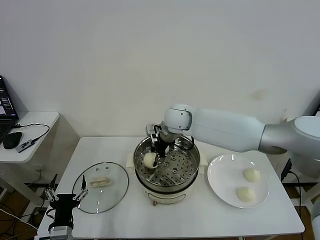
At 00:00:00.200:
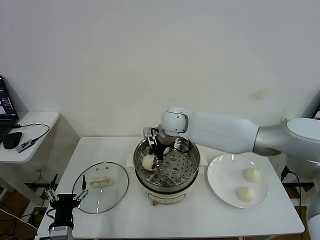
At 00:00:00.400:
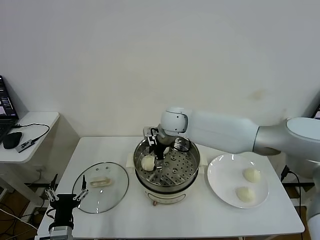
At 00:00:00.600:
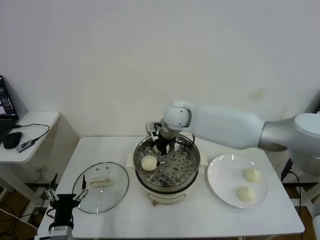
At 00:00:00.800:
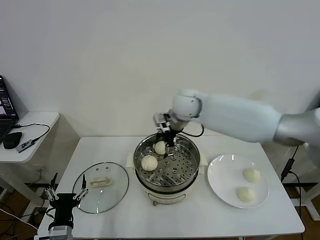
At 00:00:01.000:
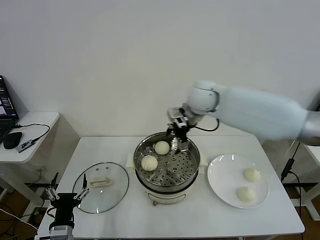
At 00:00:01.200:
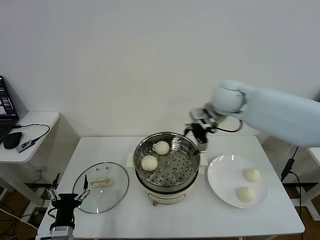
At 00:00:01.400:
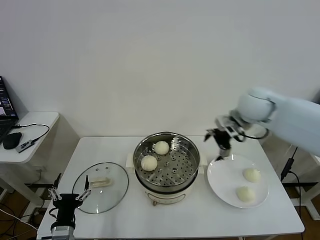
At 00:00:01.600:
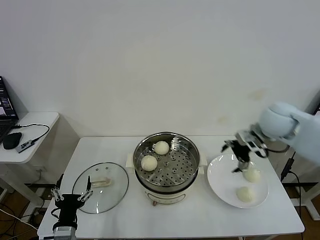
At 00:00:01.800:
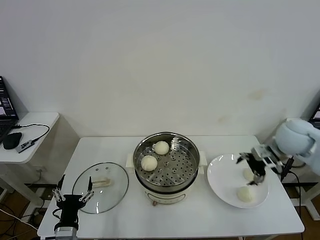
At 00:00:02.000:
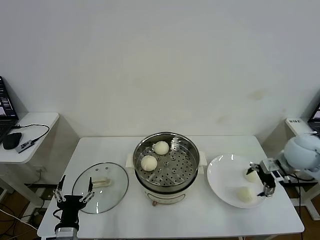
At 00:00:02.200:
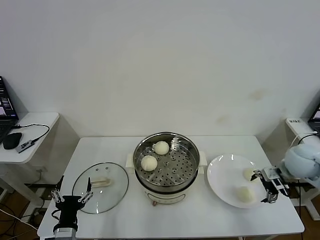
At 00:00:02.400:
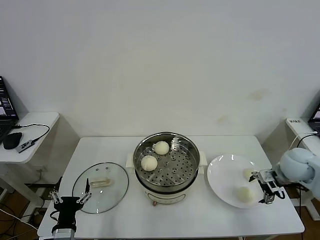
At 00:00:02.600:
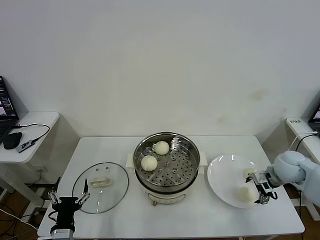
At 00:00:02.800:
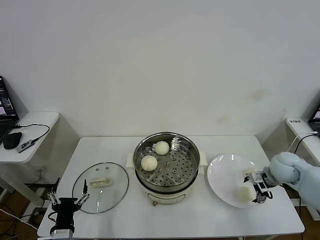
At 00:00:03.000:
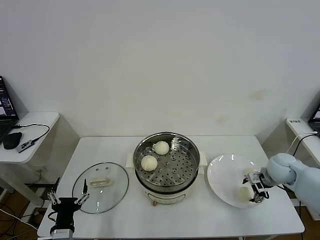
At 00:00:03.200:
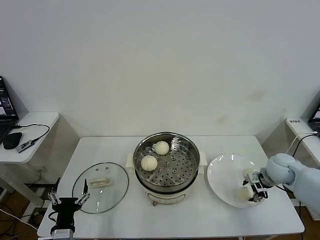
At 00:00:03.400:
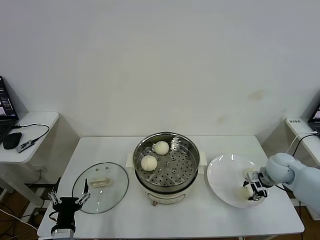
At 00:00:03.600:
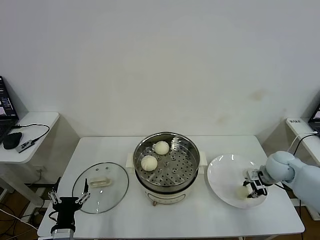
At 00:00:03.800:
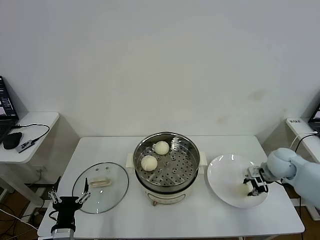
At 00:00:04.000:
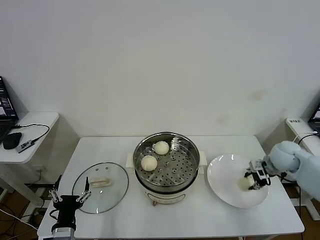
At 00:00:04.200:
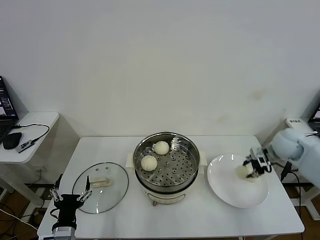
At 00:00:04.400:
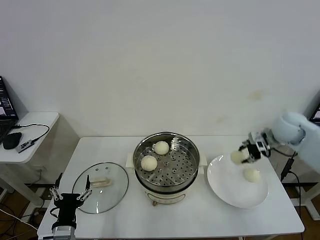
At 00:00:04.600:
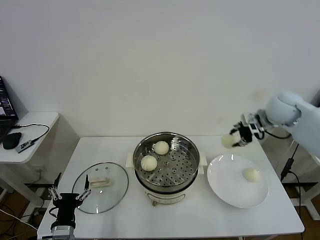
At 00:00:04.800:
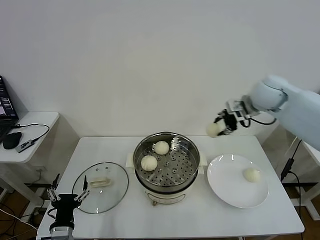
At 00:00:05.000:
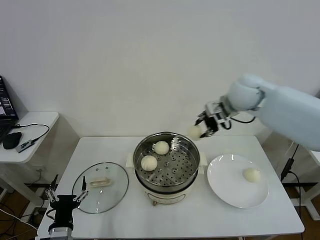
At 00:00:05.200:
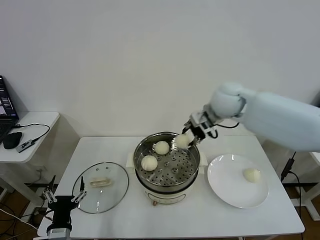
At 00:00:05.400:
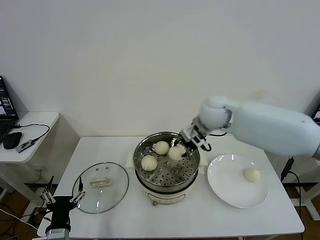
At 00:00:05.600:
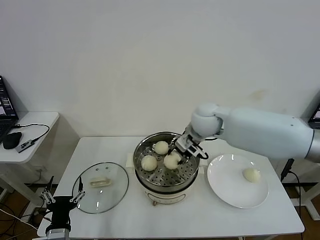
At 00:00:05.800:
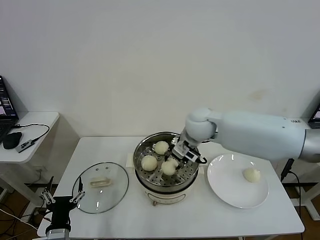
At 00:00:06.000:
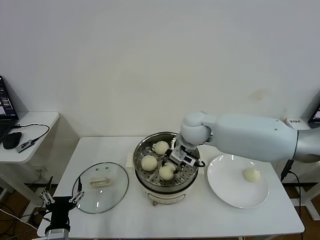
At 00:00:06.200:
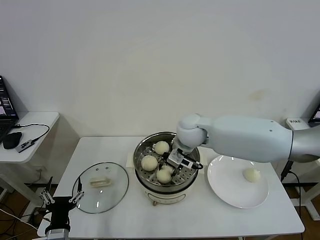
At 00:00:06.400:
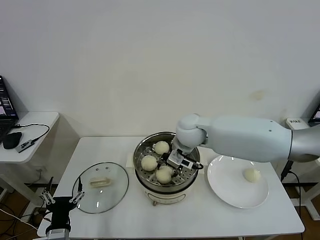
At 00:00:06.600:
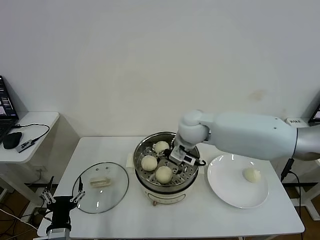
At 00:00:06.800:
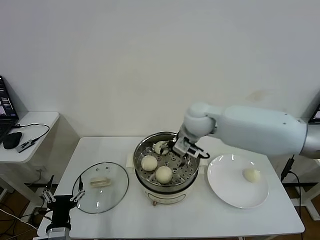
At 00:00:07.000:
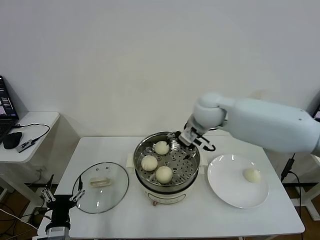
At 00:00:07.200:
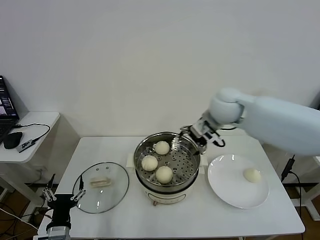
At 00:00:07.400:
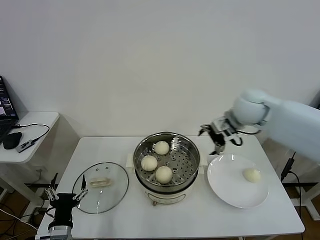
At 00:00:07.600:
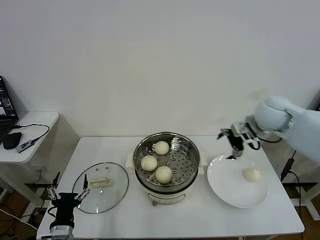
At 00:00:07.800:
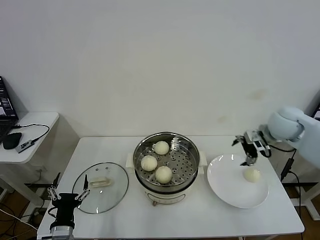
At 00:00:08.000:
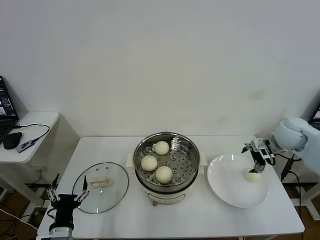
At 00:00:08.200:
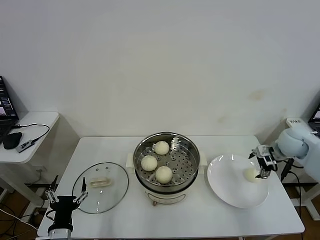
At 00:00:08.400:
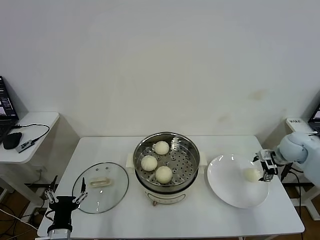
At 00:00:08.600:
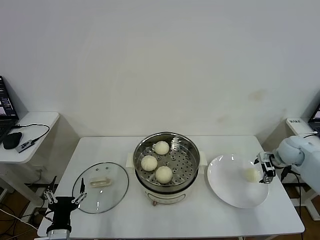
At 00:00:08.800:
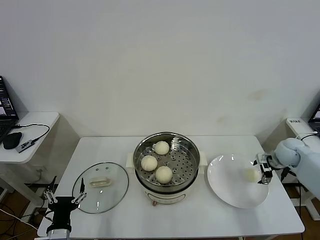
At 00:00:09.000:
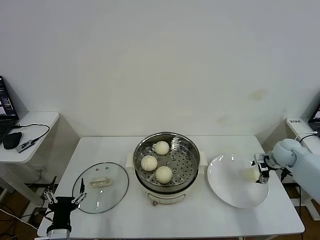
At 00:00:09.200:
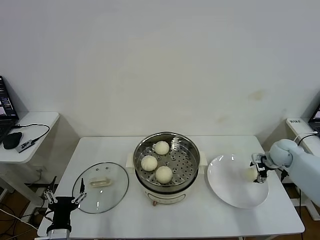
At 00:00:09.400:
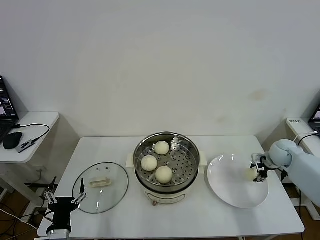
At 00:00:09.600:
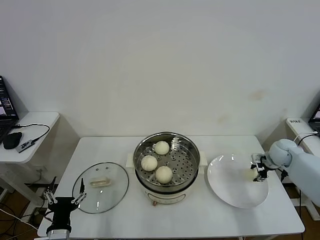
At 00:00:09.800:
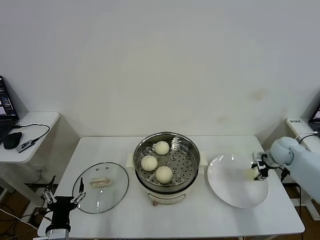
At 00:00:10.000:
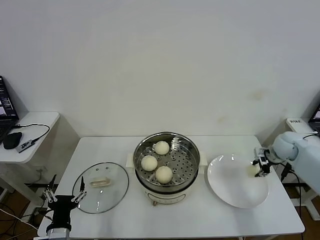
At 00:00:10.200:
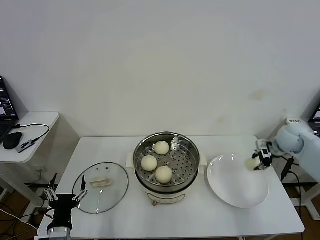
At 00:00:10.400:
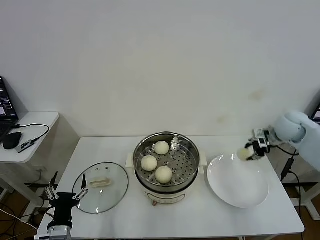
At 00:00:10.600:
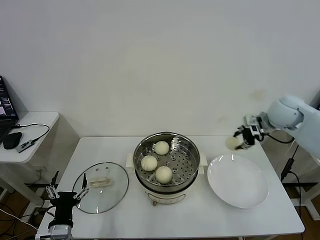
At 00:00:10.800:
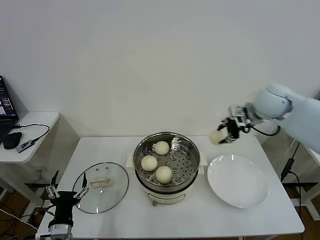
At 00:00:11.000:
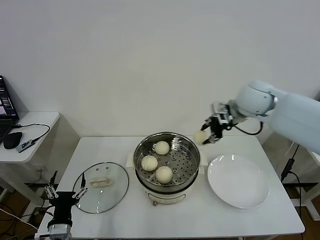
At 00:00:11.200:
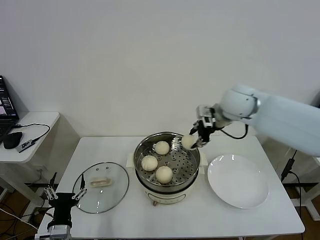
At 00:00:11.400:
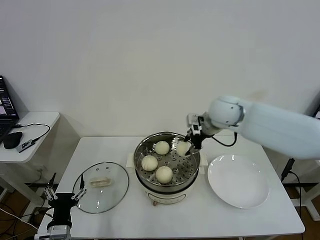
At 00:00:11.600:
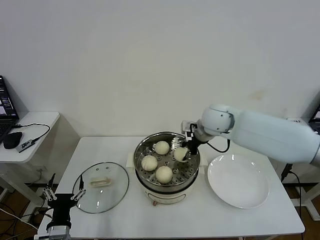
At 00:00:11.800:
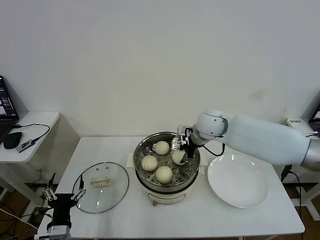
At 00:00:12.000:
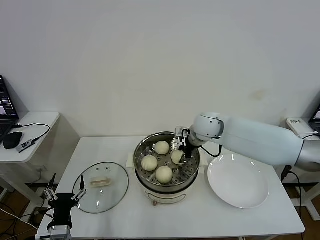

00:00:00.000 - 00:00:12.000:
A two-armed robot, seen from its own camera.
Task of the whole recording: take steamed baozi put them in steamer then cover it.
Step, 00:00:00.600 - 00:00:03.600: Grasp the baozi in the plate with right gripper.
Step, 00:00:03.800 - 00:00:06.400: Place the baozi on the steamer with right gripper.
Step, 00:00:06.600 - 00:00:09.600: Grasp the baozi in the plate with right gripper.
00:00:00.000 - 00:00:01.600: The right gripper goes some 30 cm to the right, and opens its fingers.
00:00:01.600 - 00:00:03.000: The right gripper shifts approximately 20 cm downward and to the right.
00:00:03.000 - 00:00:04.400: The right gripper moves upward and forward, approximately 15 cm, and closes.
00:00:04.400 - 00:00:06.000: The right gripper travels to the left by about 30 cm.
00:00:06.000 - 00:00:07.600: The right gripper is displaced to the right by approximately 20 cm, and opens.
00:00:07.600 - 00:00:09.000: The right gripper is displaced downward and to the right by some 25 cm.
00:00:09.000 - 00:00:10.400: The right gripper travels upward by some 10 cm, and closes its fingers.
00:00:10.400 - 00:00:12.000: The right gripper travels to the left by roughly 25 cm.

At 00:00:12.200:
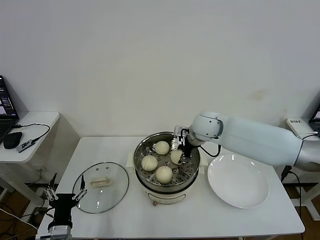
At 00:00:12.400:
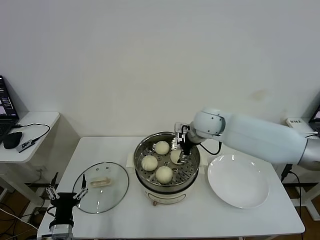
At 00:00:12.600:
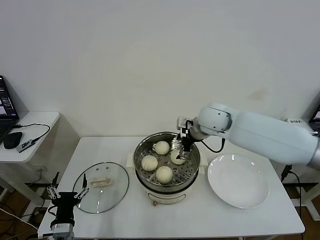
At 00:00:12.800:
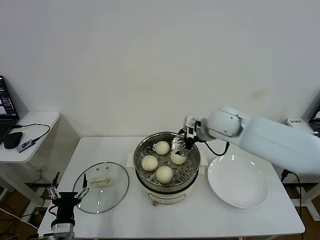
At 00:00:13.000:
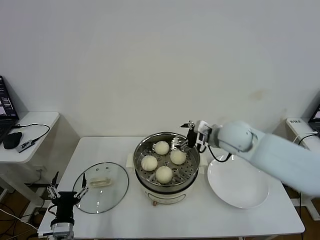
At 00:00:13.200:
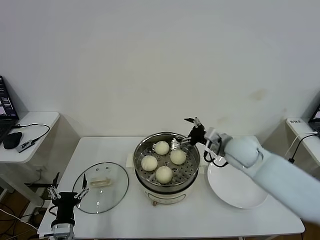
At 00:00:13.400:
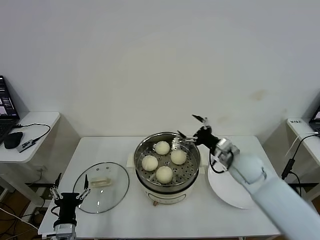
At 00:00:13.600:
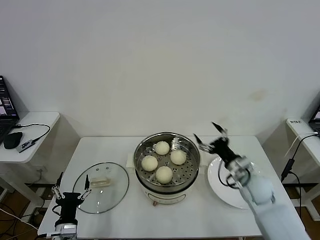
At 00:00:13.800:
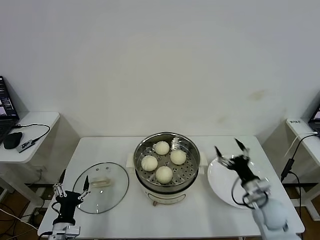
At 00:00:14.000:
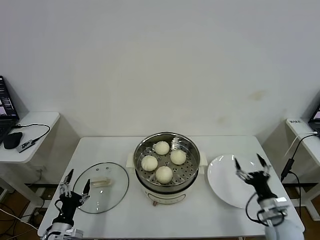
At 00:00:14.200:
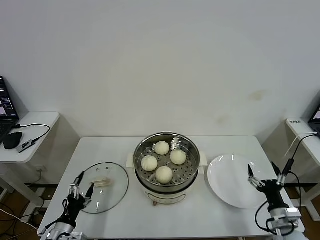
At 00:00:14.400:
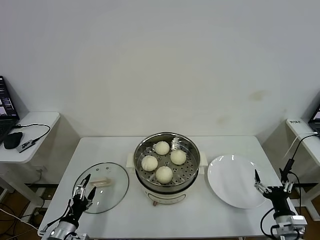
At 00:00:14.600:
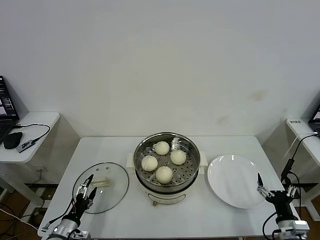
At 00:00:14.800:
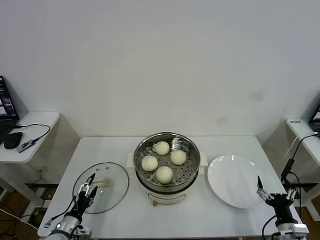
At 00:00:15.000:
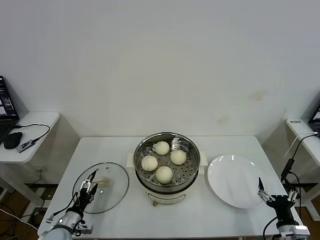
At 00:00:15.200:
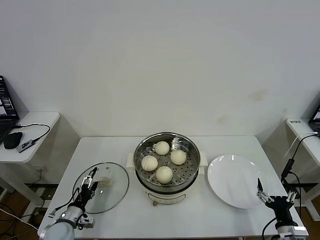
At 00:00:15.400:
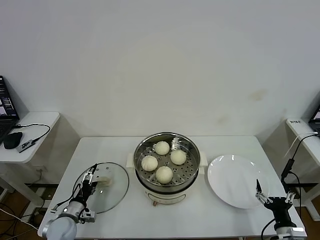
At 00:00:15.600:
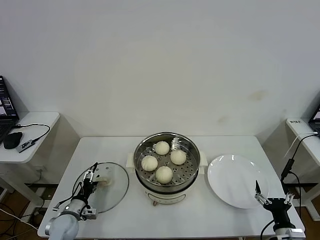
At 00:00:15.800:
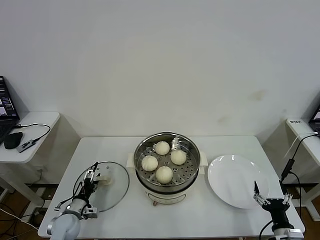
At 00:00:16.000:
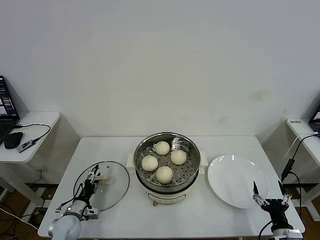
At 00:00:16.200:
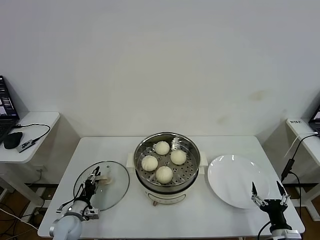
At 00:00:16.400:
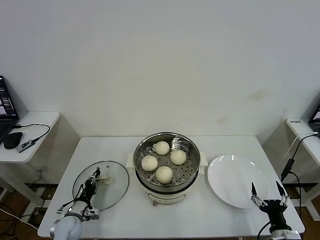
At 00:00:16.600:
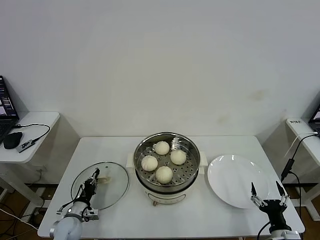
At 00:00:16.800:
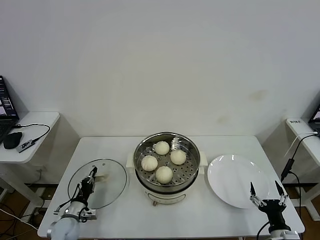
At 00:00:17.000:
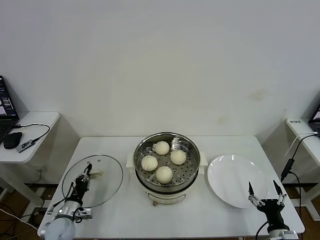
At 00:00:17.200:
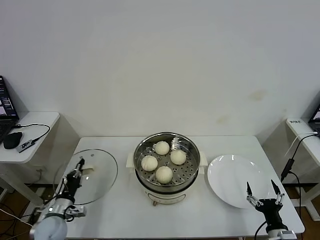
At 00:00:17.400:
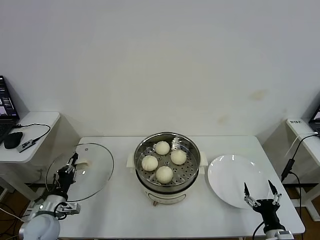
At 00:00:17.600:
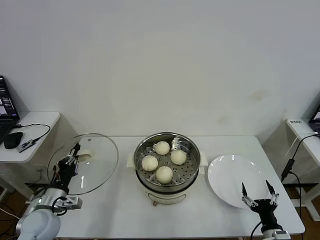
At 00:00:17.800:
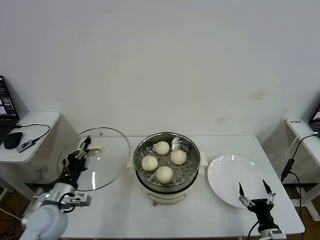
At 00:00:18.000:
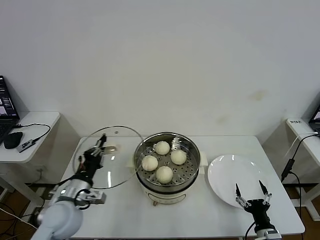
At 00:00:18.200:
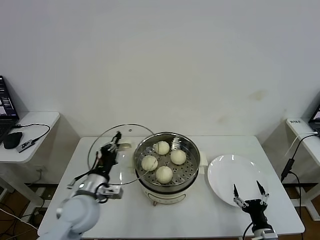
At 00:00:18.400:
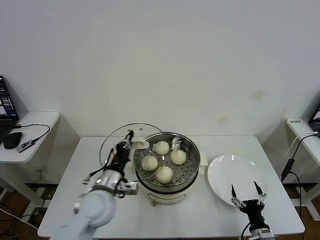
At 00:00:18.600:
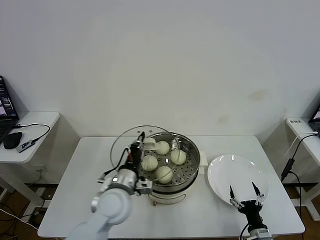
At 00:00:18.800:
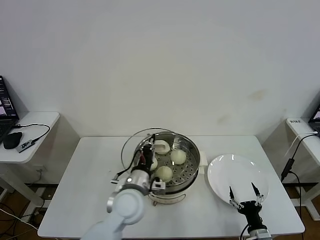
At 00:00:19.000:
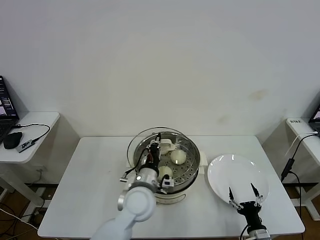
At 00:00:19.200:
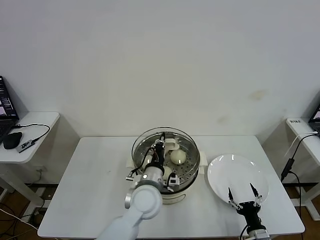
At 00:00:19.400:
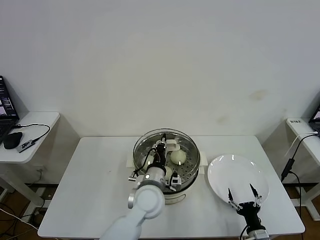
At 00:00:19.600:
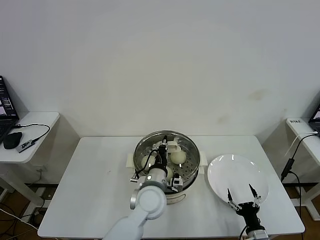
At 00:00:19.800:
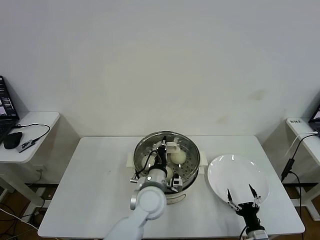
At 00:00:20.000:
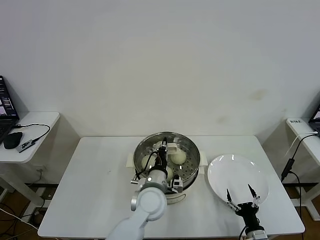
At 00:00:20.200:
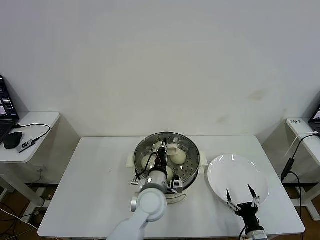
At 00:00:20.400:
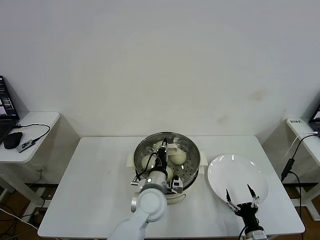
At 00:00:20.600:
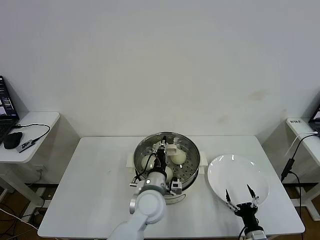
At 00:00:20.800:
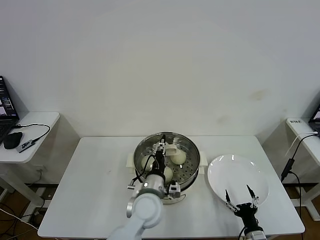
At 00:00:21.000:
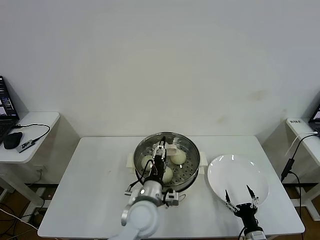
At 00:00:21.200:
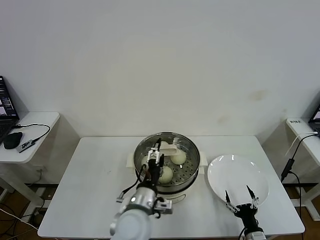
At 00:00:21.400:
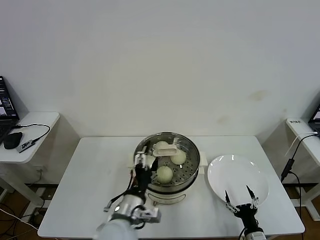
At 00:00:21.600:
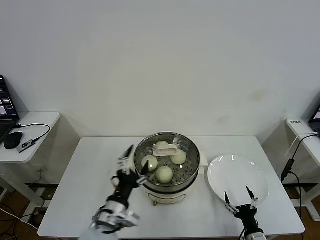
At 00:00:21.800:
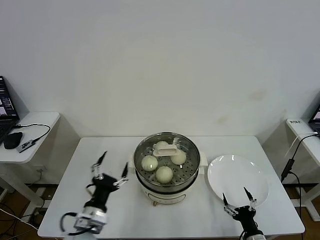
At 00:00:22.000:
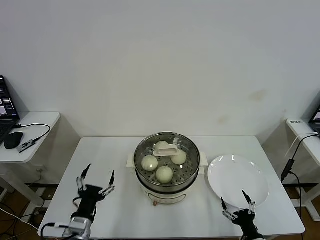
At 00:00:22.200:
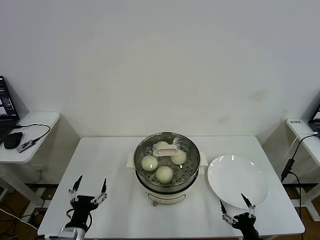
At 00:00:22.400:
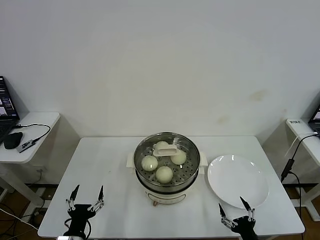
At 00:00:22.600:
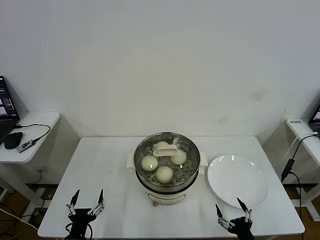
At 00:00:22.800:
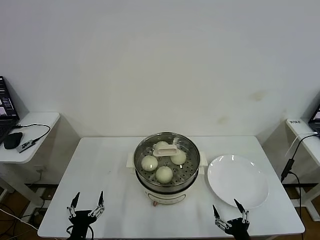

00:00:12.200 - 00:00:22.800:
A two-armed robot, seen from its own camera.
Task of the whole recording: take steamed baozi put them in steamer then cover it.
Step, 00:00:12.600 - 00:00:16.600: Grasp the pot lid with left gripper.
Step, 00:00:16.800 - 00:00:20.600: Place the pot lid on the steamer with left gripper.
00:00:12.200 - 00:00:13.800: The right gripper moves backward, to the right and downward, approximately 30 cm, and opens up; the left gripper moves approximately 5 cm.
00:00:13.800 - 00:00:15.200: The right gripper is displaced backward, to the right and downward by about 20 cm. Meanwhile the left gripper travels forward by roughly 5 cm.
00:00:15.200 - 00:00:16.800: The left gripper closes its fingers.
00:00:16.800 - 00:00:18.200: The left gripper shifts about 25 cm upward and to the right.
00:00:18.200 - 00:00:19.800: The left gripper moves to the right, about 20 cm.
00:00:19.800 - 00:00:21.200: The left gripper is displaced backward by about 5 cm, and opens.
00:00:21.200 - 00:00:22.800: The left gripper is displaced to the left, backward and downward by about 25 cm, while the right gripper travels backward and upward by some 10 cm.
